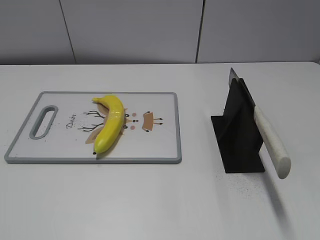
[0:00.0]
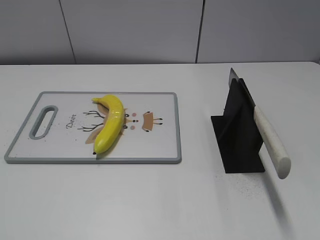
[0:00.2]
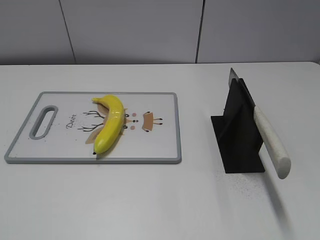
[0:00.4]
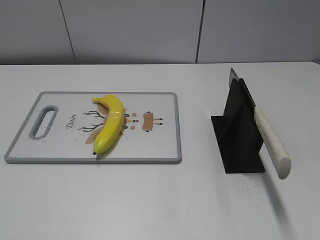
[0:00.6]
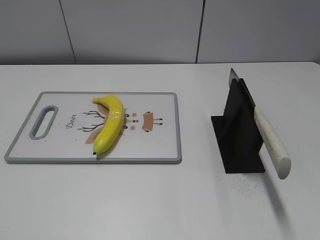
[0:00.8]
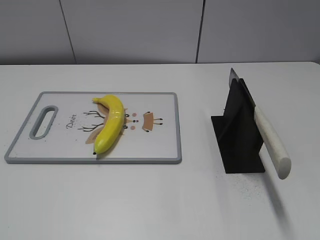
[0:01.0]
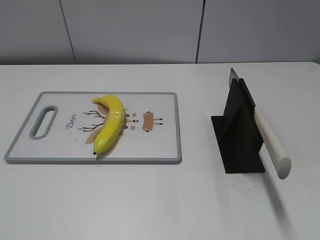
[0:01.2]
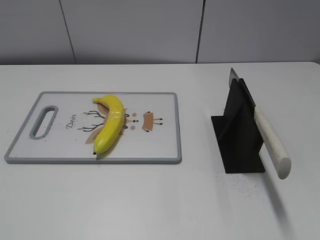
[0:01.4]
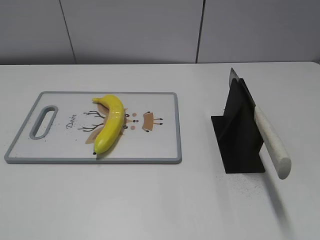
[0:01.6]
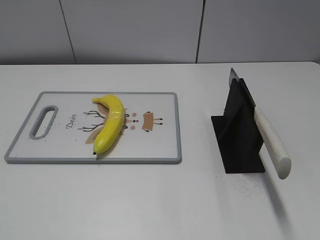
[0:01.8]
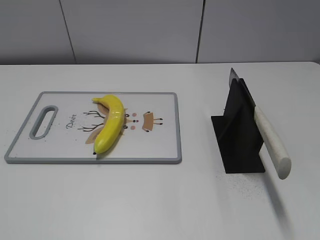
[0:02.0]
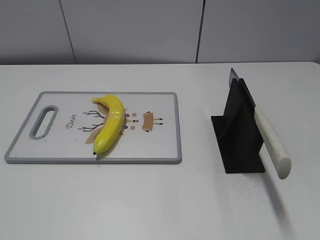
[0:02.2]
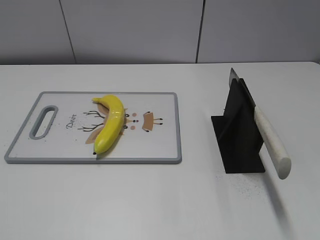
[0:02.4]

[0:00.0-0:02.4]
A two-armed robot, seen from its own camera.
Task of the whole recording: cut plastic banana.
0:00.0 to 0:02.4: Neither gripper changes place.
